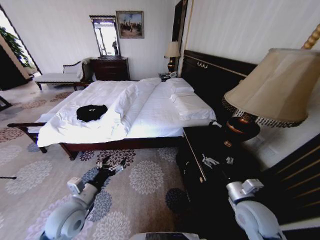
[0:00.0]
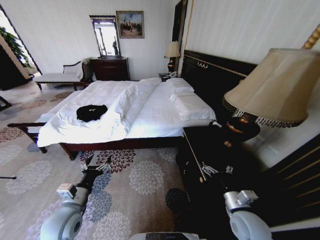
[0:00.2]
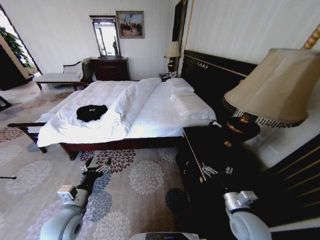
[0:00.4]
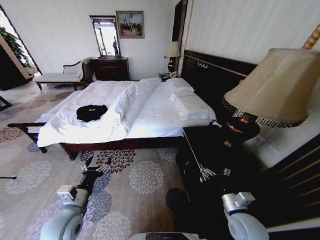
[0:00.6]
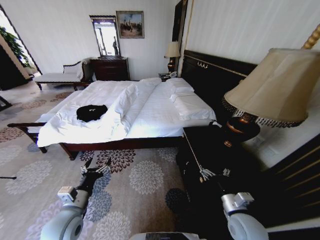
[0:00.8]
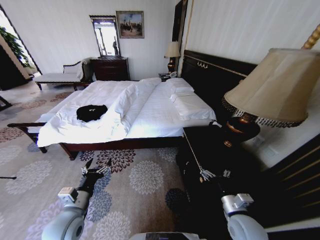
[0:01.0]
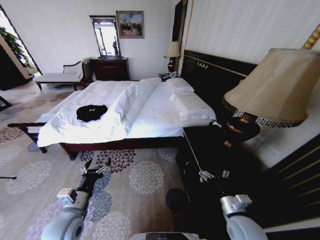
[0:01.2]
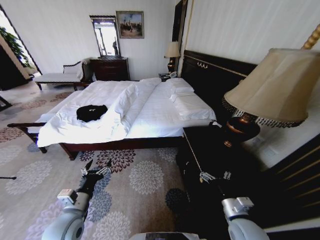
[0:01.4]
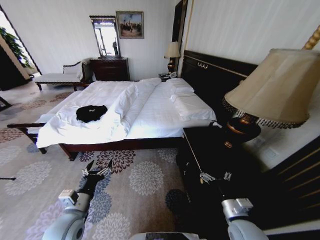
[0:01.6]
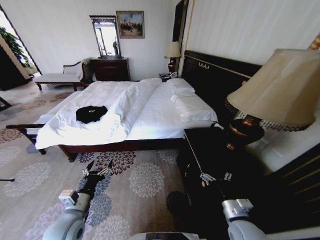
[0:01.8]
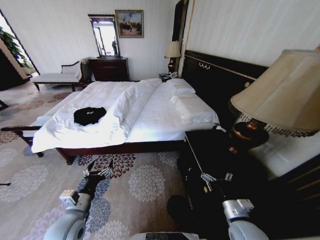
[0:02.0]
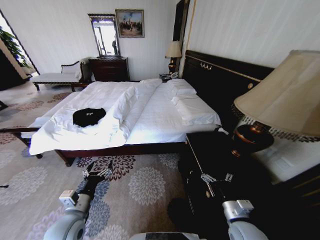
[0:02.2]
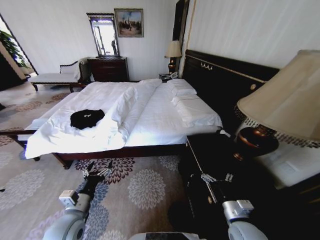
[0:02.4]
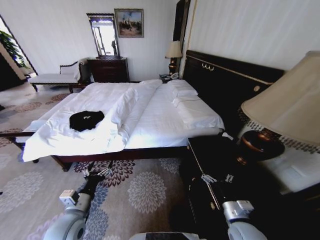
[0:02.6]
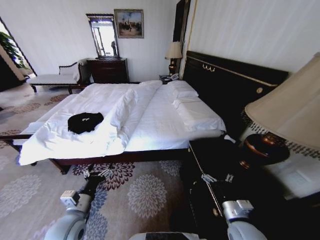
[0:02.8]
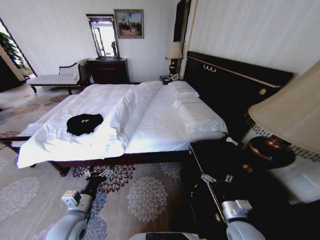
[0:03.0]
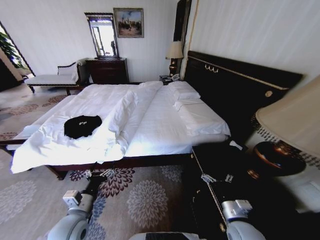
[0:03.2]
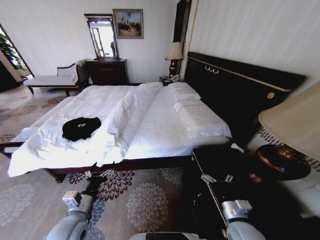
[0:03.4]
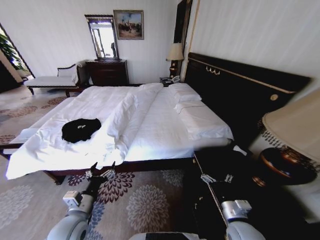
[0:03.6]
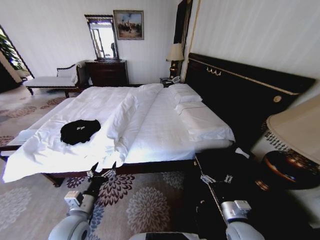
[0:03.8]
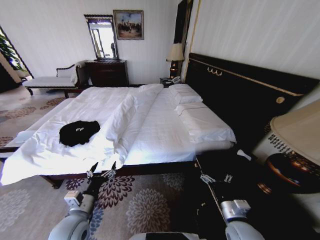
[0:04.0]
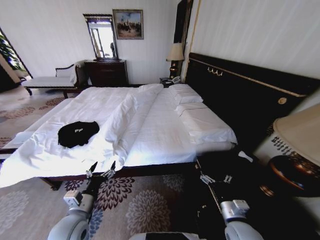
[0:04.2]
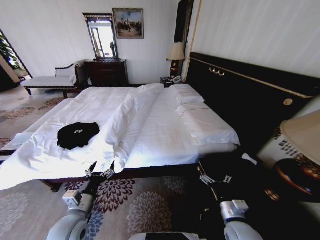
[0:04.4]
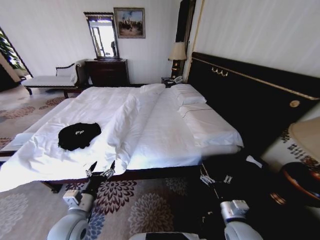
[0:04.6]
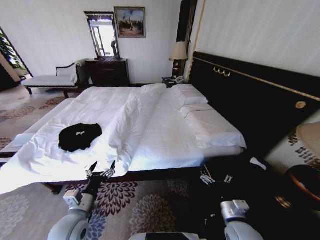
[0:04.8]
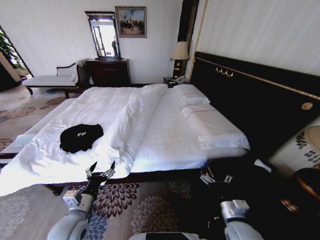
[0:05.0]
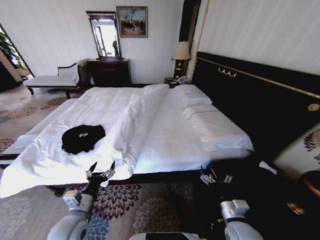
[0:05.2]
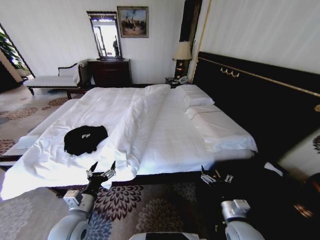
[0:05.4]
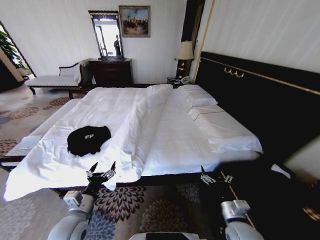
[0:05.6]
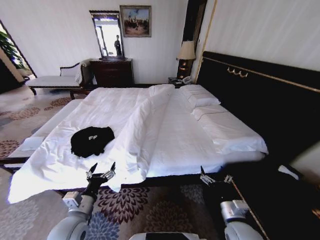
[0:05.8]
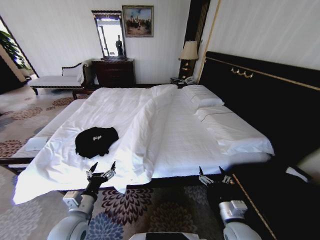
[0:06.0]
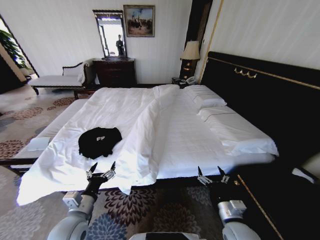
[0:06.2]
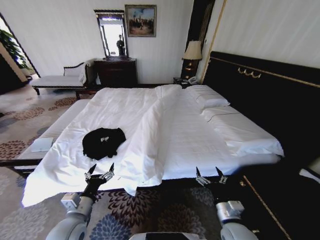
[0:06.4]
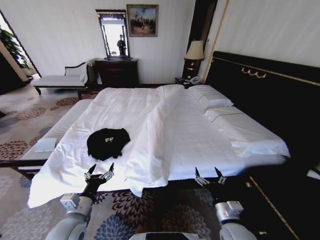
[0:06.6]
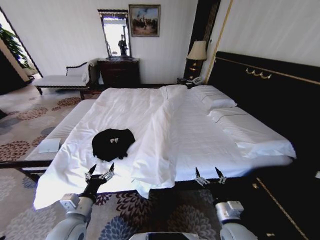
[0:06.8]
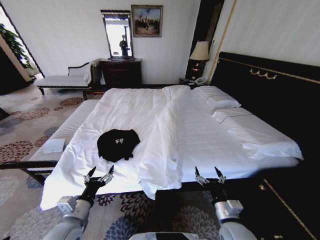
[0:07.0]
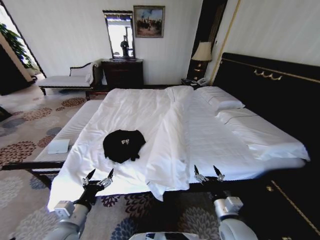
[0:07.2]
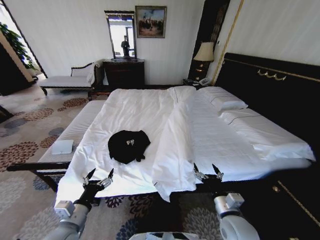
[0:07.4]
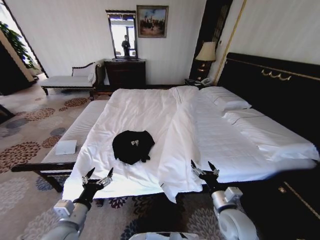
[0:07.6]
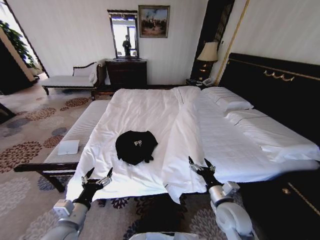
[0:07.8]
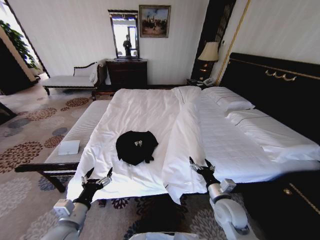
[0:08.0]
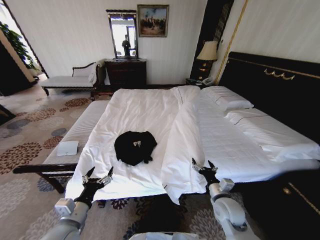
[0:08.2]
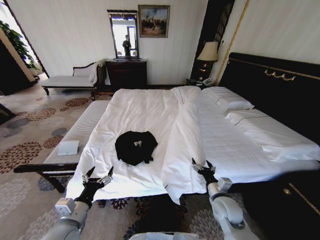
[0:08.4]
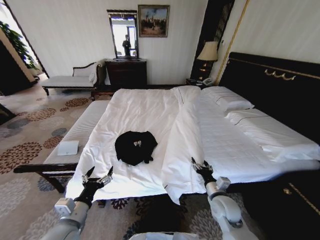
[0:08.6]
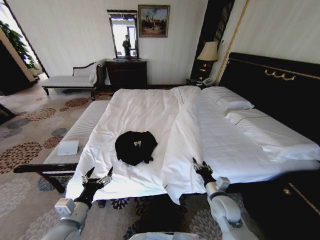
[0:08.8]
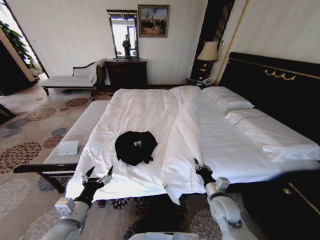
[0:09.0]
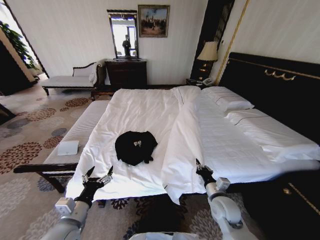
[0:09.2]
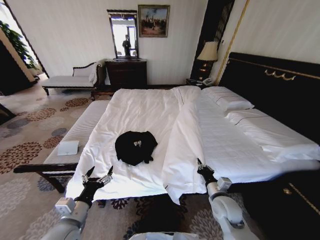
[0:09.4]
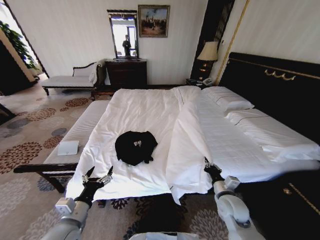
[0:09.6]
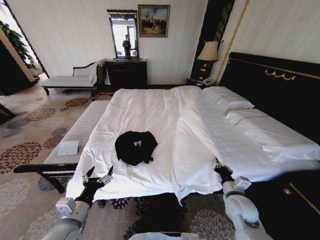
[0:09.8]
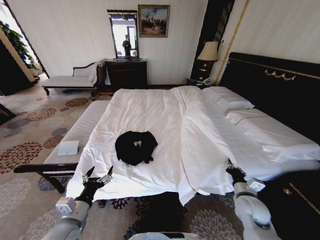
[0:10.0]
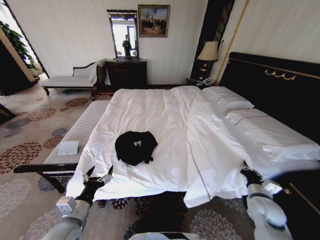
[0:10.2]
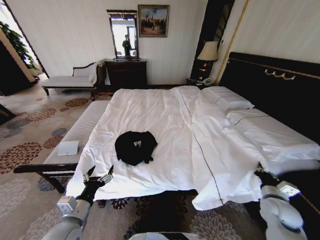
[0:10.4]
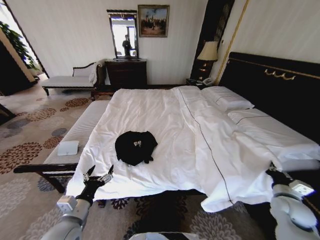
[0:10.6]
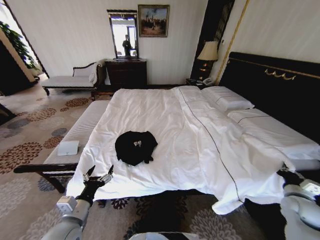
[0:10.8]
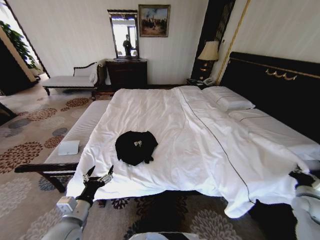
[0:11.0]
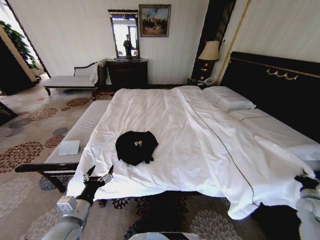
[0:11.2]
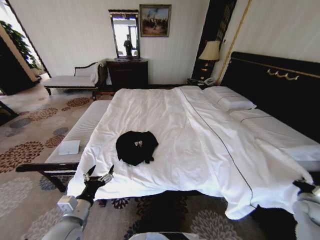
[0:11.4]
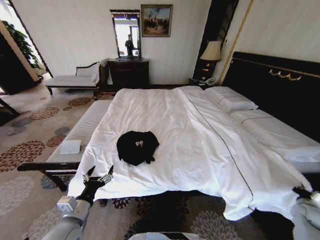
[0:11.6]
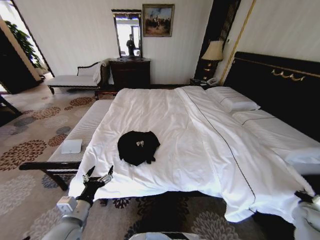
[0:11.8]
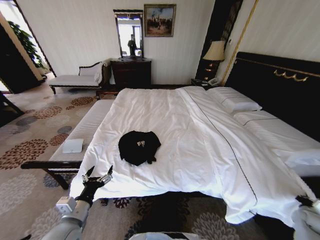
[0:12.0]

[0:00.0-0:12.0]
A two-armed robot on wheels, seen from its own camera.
Task of the whole recording: Fold the clothes on the bed.
0:07.6 to 0:09.0: The right gripper travels forward by approximately 5 cm, and closes up.
0:09.0 to 0:10.4: The right gripper heads to the right, covering about 20 cm.
0:10.4 to 0:12.0: The right gripper is displaced to the right and downward by approximately 20 cm.

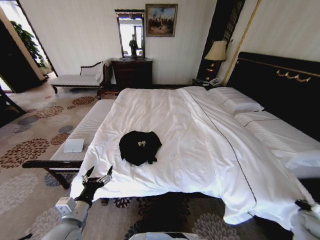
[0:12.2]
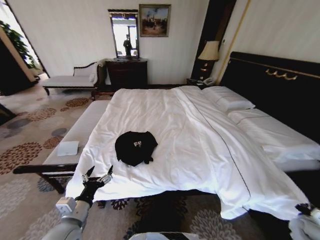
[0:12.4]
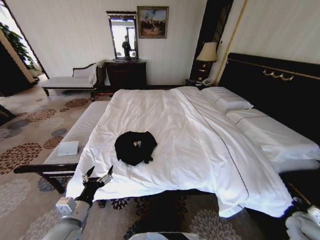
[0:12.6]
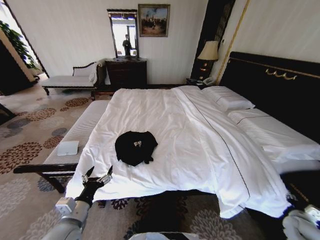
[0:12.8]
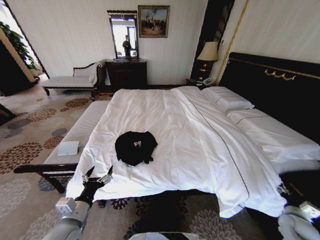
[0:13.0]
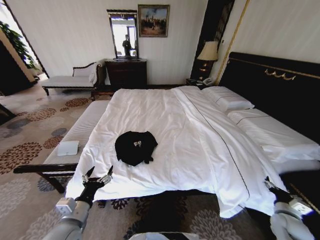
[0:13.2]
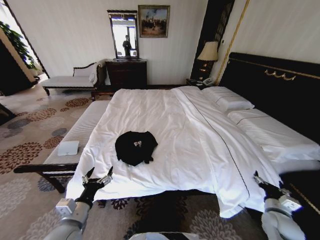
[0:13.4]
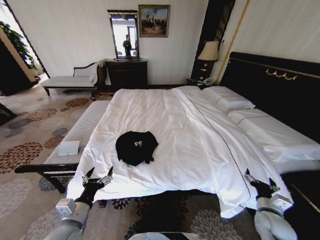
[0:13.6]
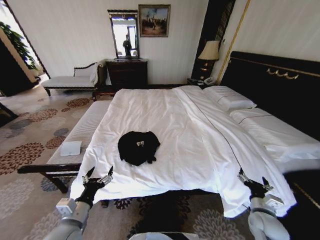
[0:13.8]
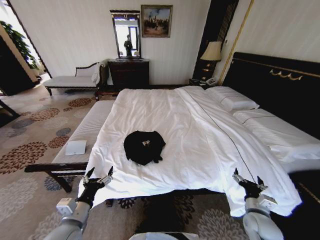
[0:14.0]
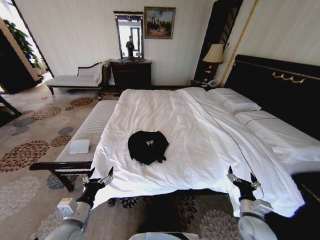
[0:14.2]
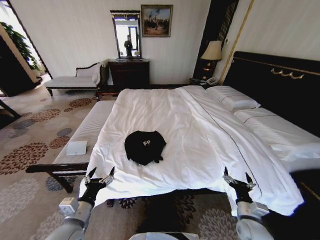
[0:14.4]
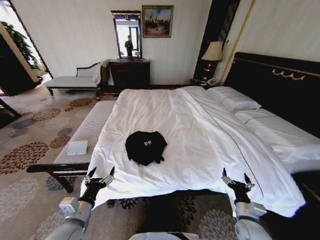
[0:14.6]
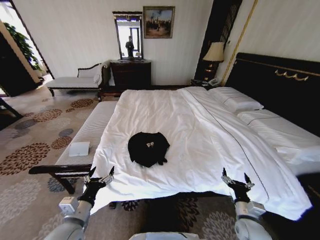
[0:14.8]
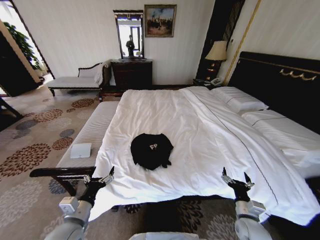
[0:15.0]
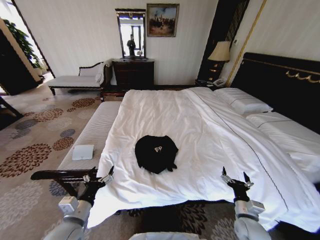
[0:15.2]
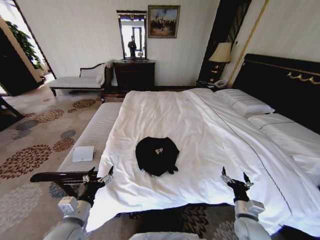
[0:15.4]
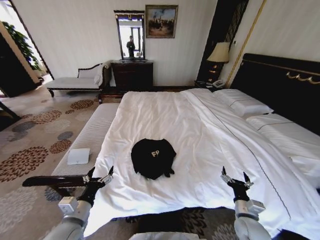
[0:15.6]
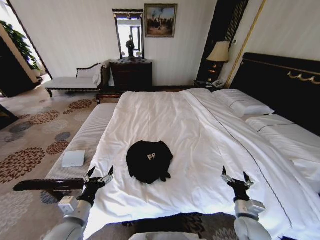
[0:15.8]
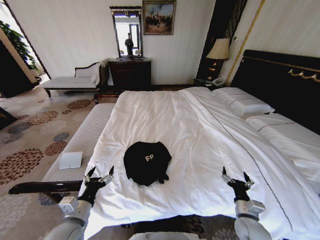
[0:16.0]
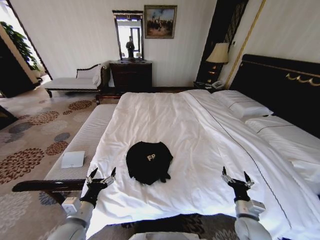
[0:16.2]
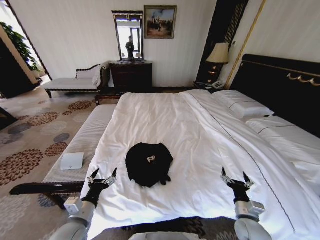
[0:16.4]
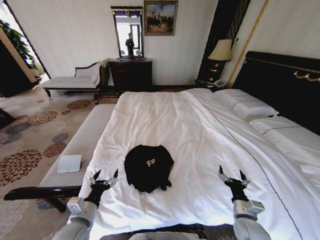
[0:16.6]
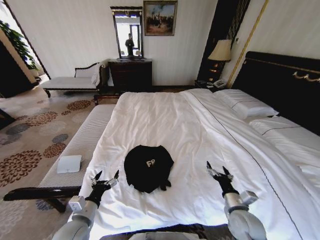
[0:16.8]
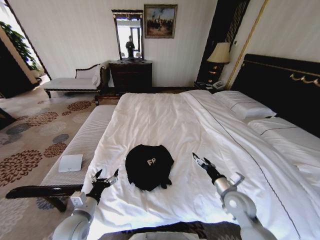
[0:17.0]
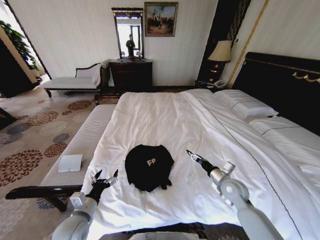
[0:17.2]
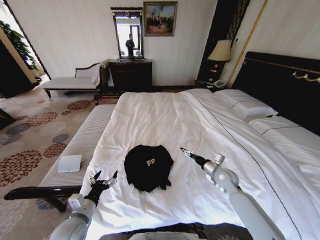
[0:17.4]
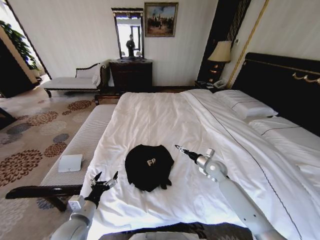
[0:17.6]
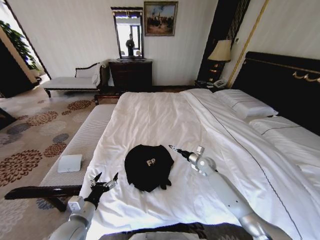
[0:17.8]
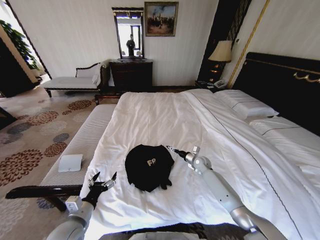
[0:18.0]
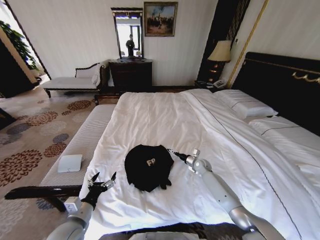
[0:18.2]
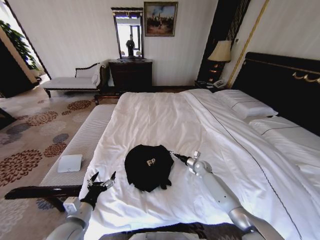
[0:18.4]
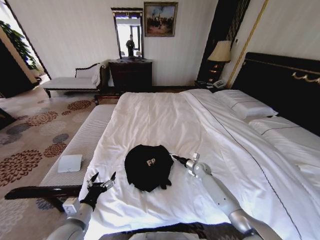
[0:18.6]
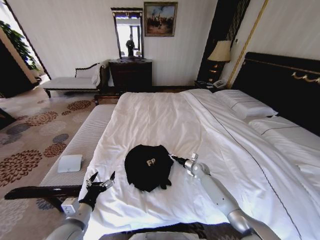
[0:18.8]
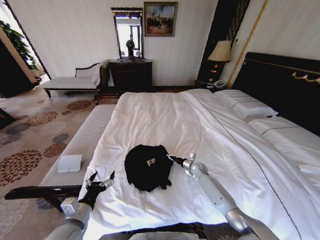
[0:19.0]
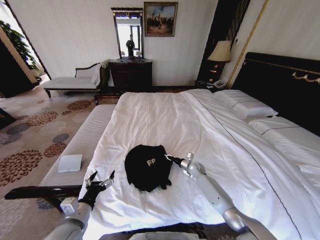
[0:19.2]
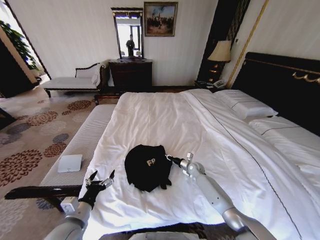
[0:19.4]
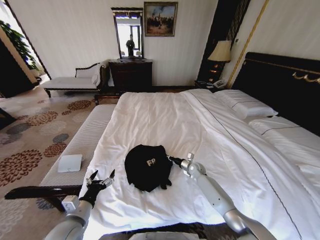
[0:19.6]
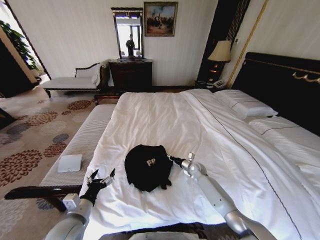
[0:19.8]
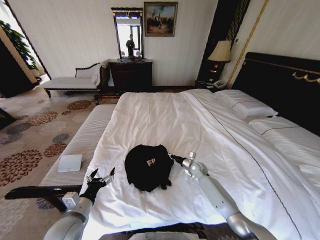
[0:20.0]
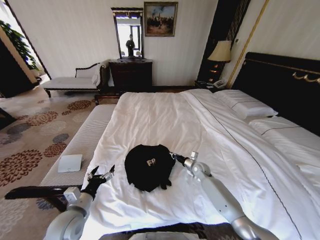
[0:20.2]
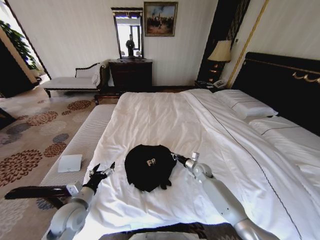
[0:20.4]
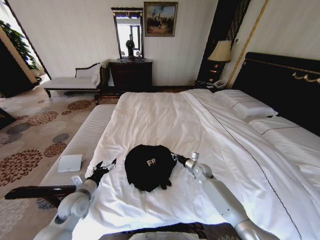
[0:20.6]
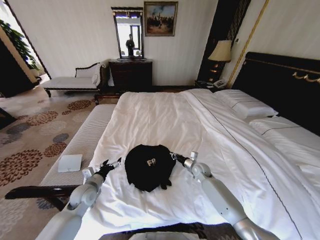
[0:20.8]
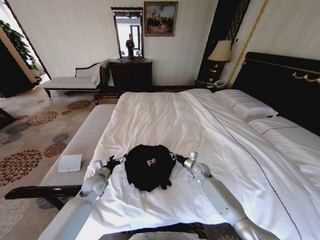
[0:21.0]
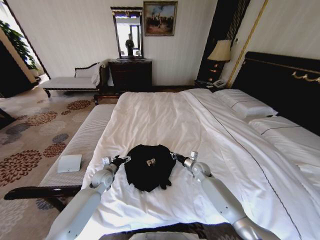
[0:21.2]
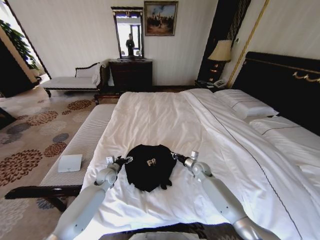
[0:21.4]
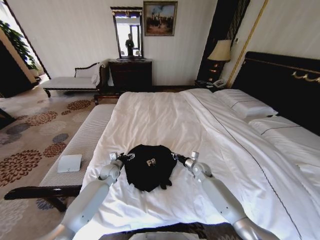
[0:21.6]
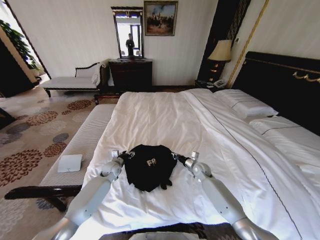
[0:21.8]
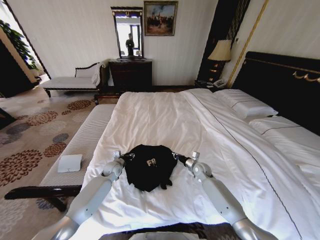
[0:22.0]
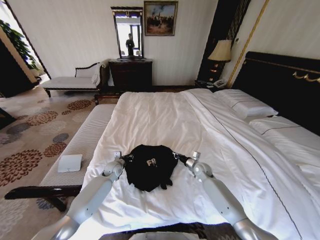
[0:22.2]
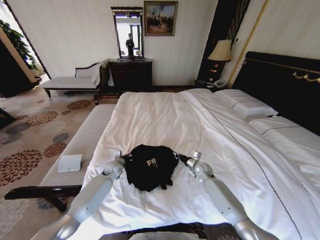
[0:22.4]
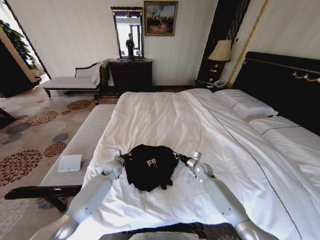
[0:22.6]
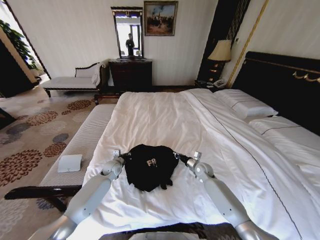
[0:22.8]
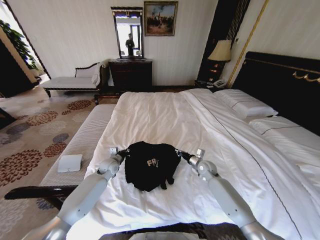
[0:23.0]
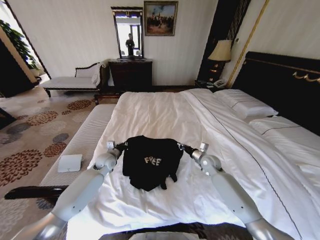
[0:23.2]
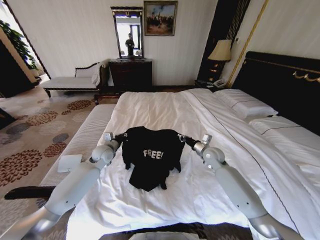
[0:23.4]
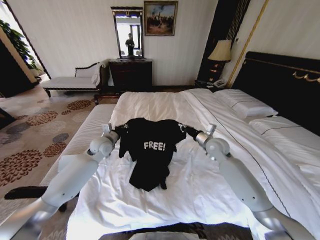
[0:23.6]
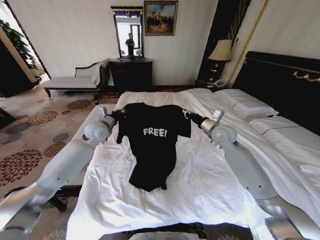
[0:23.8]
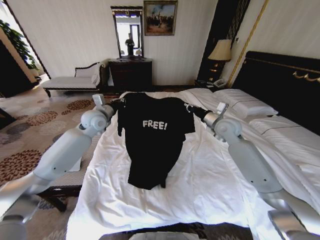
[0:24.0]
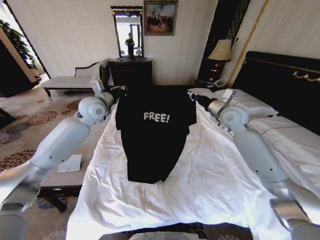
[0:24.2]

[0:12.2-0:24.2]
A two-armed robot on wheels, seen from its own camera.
Task of the whole recording: Fold the clothes on the bed.
0:12.2 to 0:13.8: The right gripper shifts approximately 25 cm to the left, and opens its fingers.
0:13.8 to 0:15.2: The right gripper moves to the left, some 5 cm.
0:16.6 to 0:18.2: The right gripper is displaced forward by roughly 30 cm.
0:18.2 to 0:19.8: The right gripper closes up.
0:19.8 to 0:21.2: The left gripper heads forward, covering approximately 20 cm.
0:21.2 to 0:22.6: The left gripper goes some 5 cm forward, and closes.
0:22.6 to 0:24.2: The two grippers go roughly 35 cm upward.
